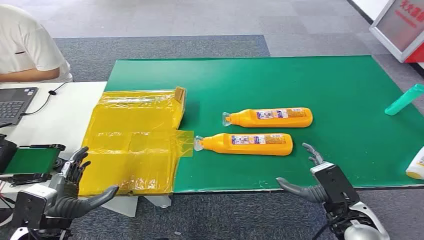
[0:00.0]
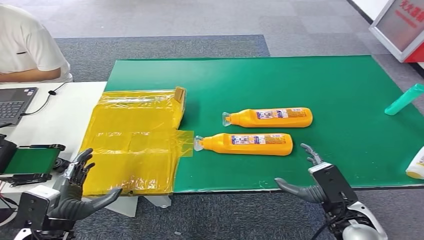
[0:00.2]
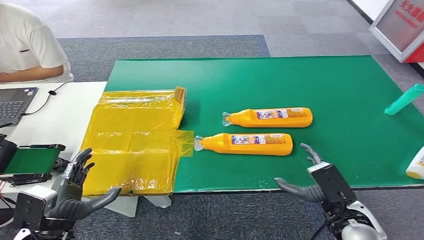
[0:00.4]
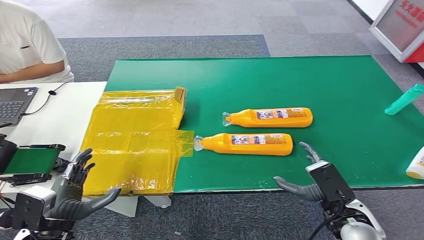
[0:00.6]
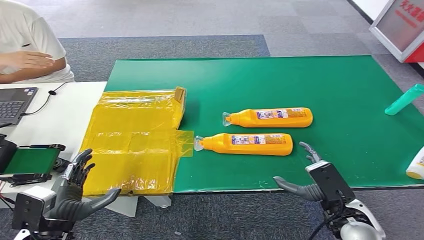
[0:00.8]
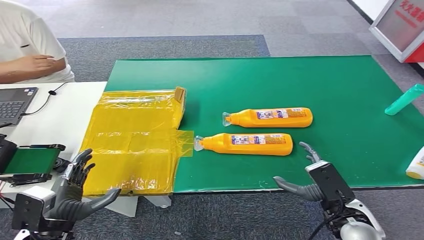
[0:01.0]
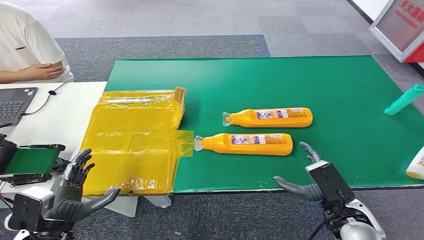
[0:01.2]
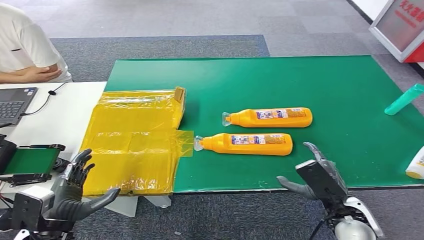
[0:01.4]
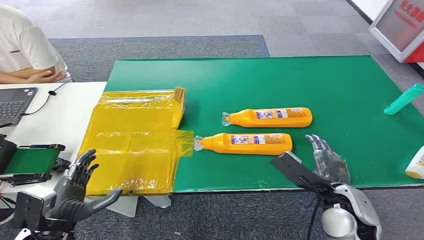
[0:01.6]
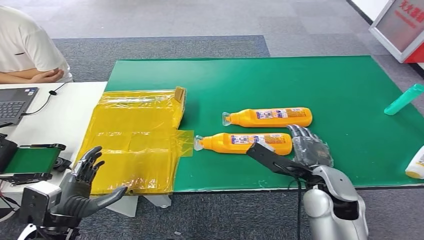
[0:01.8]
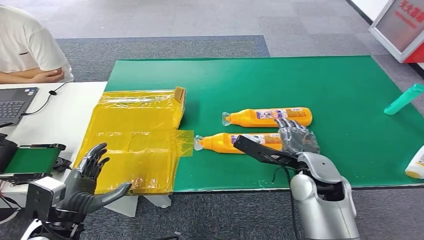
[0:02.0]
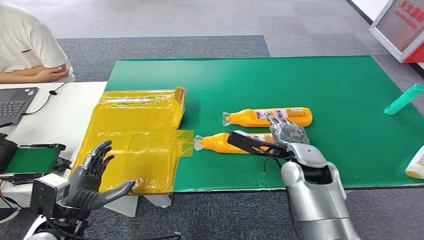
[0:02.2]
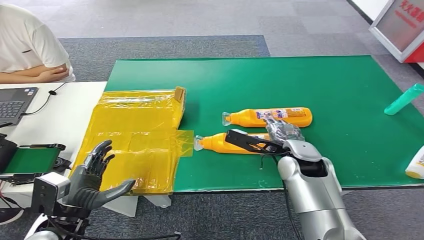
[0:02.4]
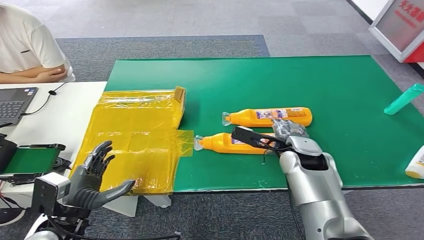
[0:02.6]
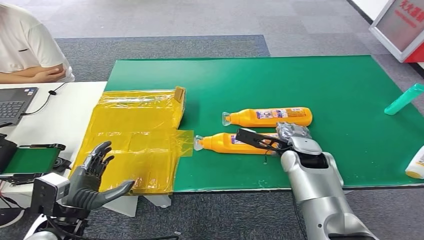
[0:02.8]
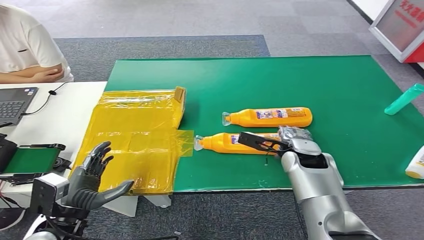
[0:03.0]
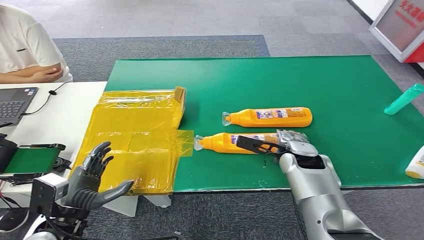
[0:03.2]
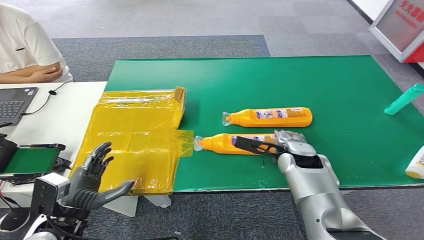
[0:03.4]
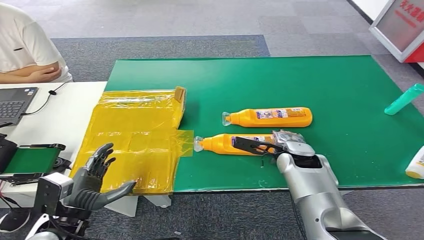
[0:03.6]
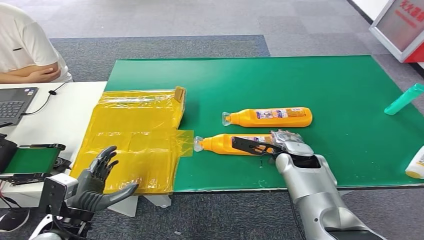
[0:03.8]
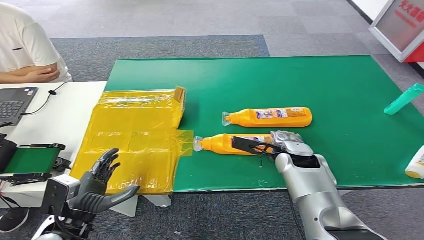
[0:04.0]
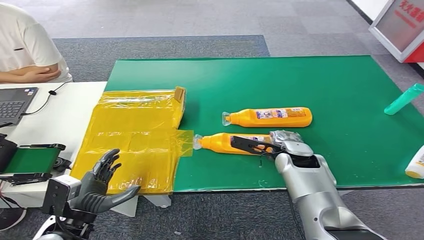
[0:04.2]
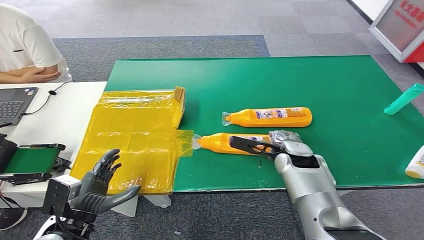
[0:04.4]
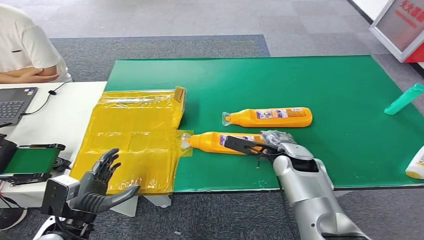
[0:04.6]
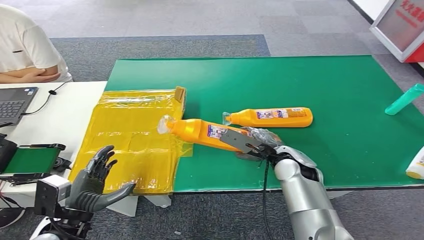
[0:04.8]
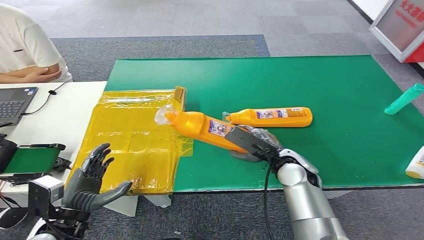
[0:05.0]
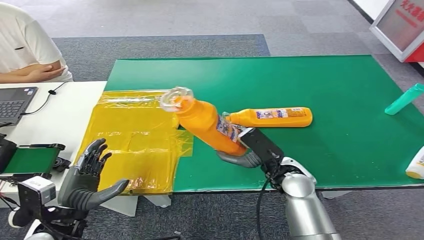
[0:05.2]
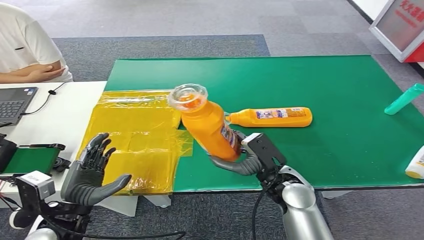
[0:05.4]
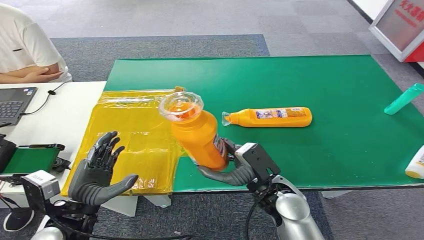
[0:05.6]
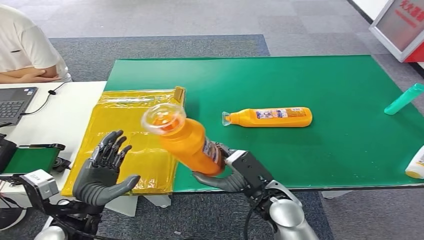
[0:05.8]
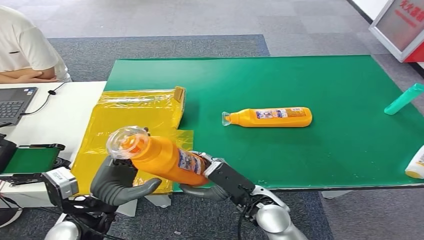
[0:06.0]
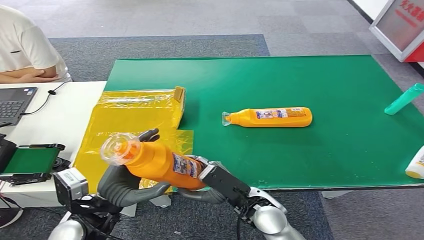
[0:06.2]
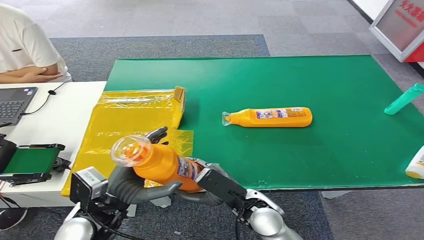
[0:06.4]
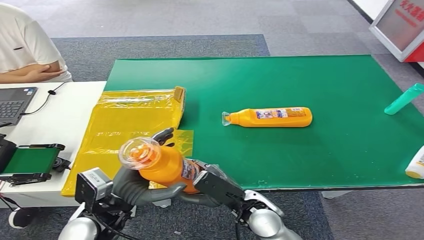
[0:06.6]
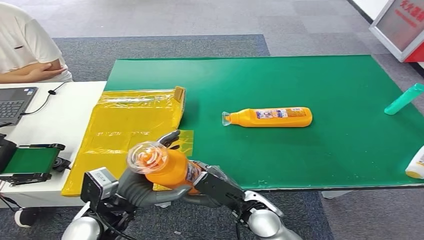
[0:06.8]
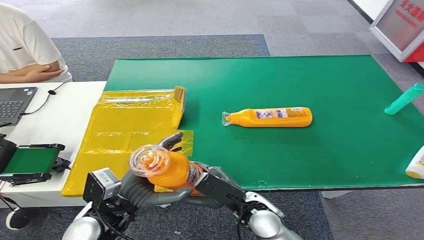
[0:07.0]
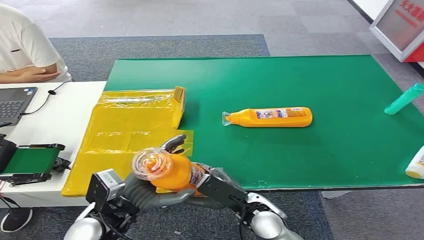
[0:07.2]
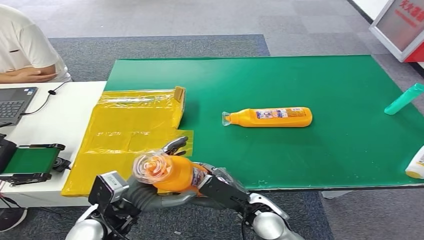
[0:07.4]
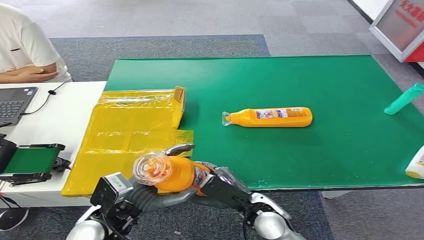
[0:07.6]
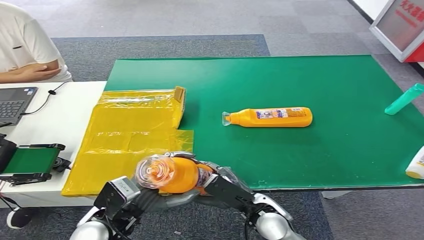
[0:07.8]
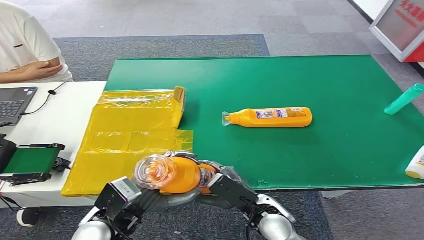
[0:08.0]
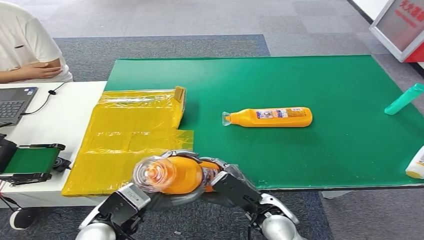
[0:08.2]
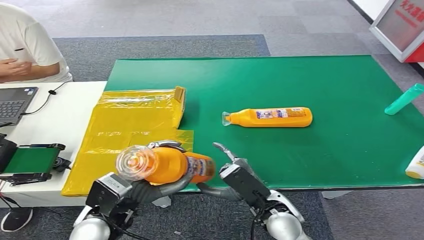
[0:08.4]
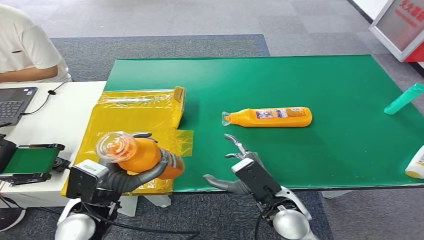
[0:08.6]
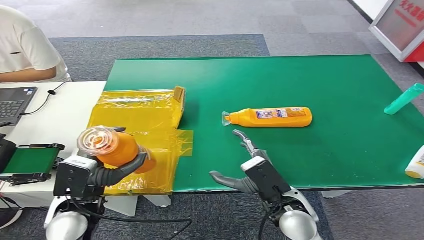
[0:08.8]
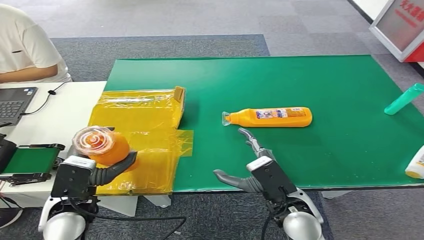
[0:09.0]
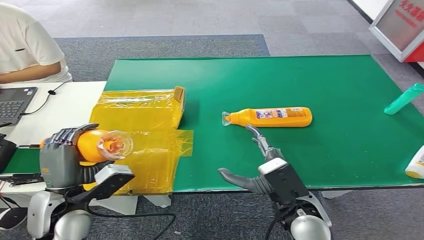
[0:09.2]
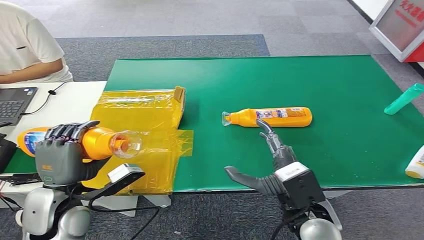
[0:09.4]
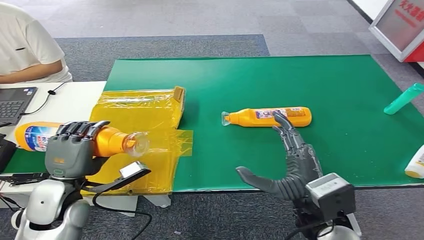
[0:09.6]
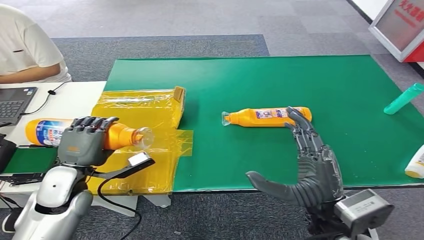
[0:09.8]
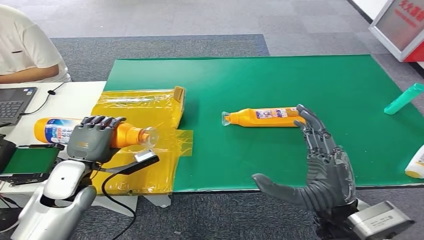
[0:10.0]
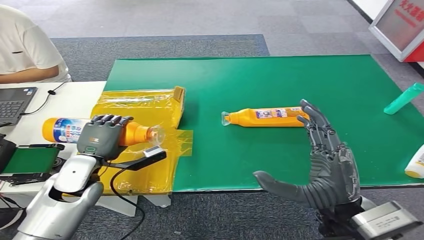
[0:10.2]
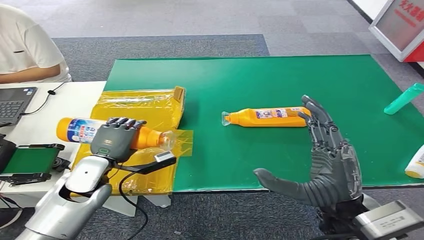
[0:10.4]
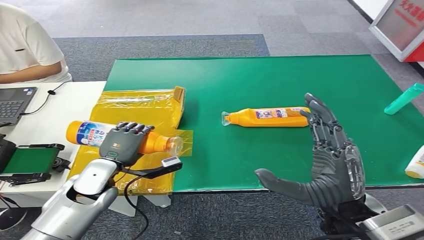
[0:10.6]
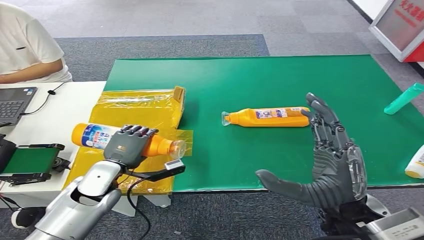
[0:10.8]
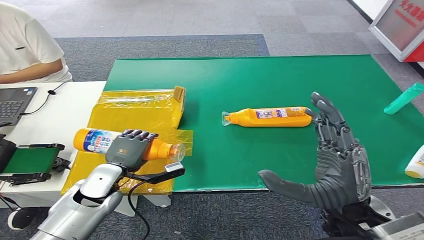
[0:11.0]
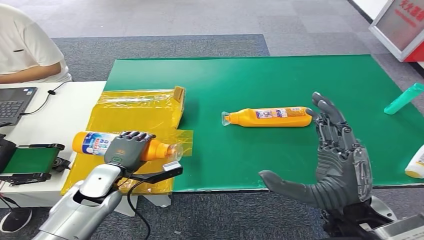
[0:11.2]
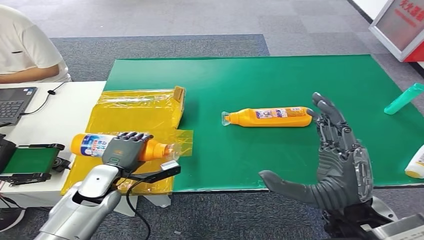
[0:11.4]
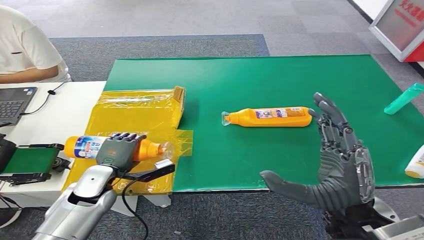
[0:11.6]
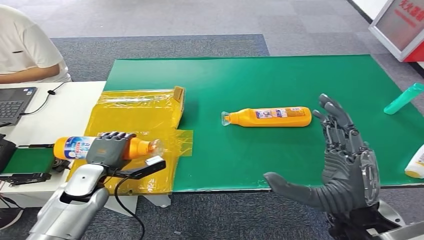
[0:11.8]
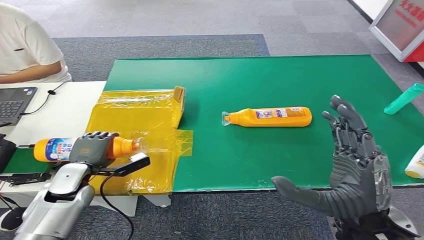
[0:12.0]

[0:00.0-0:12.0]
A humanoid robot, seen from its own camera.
Step, 0:00.0 to 0:08.0: Pick up the bottle from the table.
0:01.6 to 0:03.0: The right hand is displaced forward by about 15 cm.
0:03.0 to 0:04.4: The hands make only small movements.
0:04.4 to 0:06.0: The right hand is displaced backward and to the left by some 15 cm; the left hand travels to the right and upward by approximately 5 cm.
0:06.0 to 0:07.6: The hands stay close to where they were, moving slightly.
0:07.6 to 0:09.0: The right hand moves upward, about 5 cm. The left hand goes roughly 5 cm to the left.
0:09.0 to 0:10.4: The right hand is displaced upward by about 10 cm. Meanwhile the left hand shifts about 10 cm forward.
0:10.4 to 0:12.0: The left hand travels to the left and downward by approximately 10 cm.

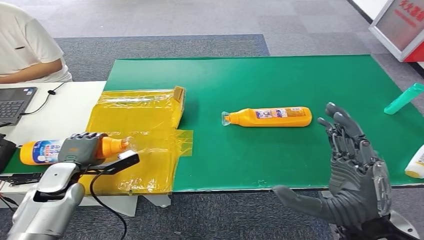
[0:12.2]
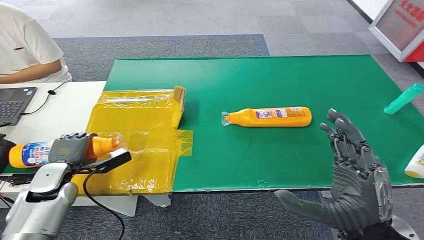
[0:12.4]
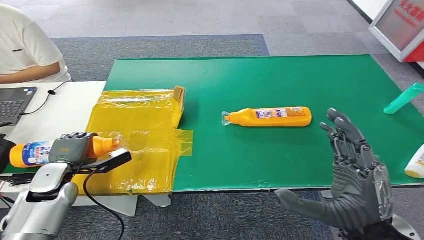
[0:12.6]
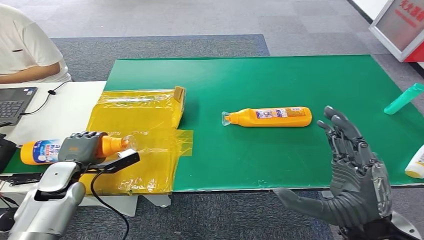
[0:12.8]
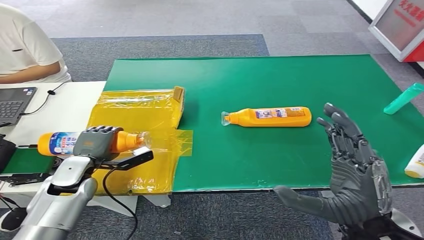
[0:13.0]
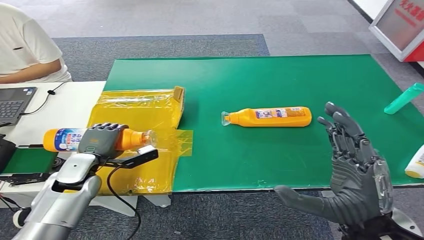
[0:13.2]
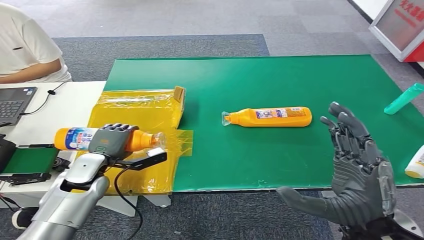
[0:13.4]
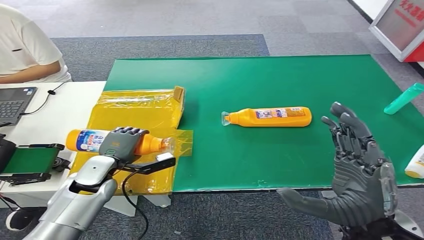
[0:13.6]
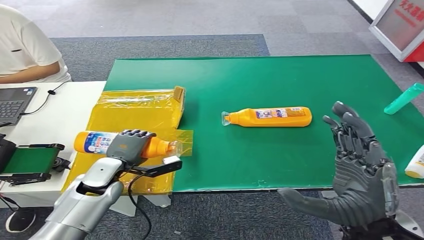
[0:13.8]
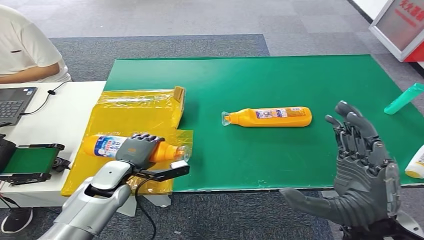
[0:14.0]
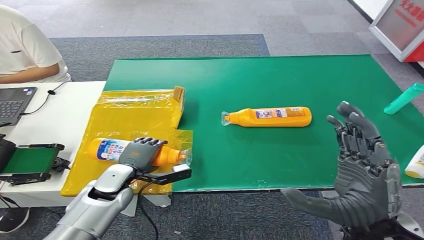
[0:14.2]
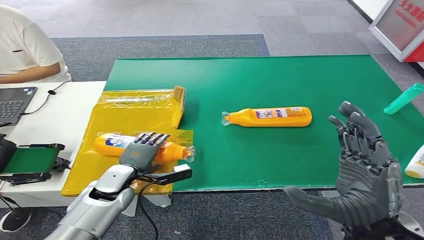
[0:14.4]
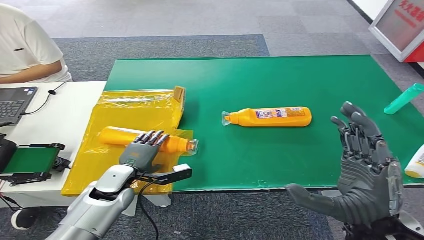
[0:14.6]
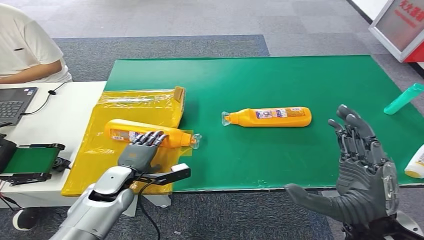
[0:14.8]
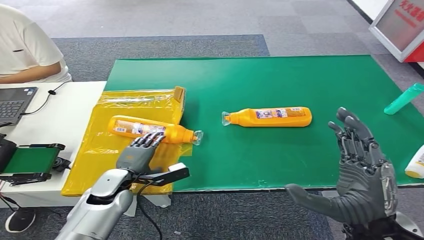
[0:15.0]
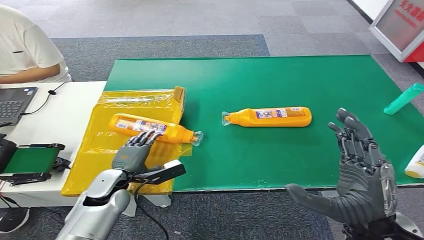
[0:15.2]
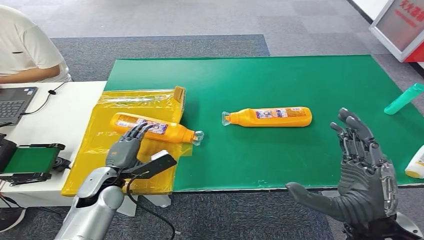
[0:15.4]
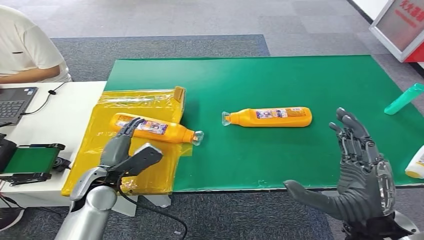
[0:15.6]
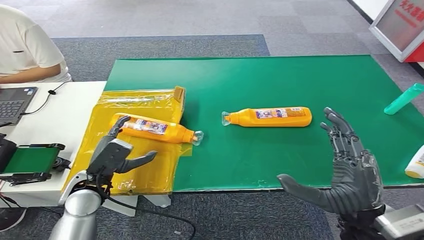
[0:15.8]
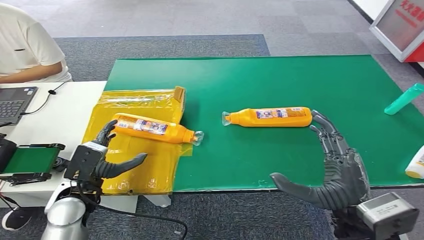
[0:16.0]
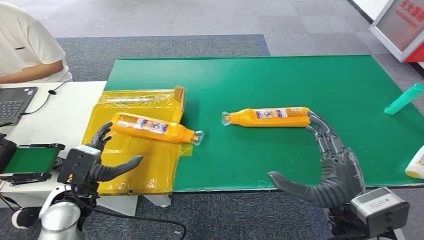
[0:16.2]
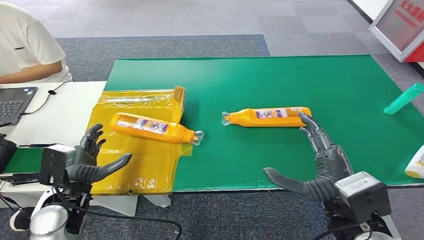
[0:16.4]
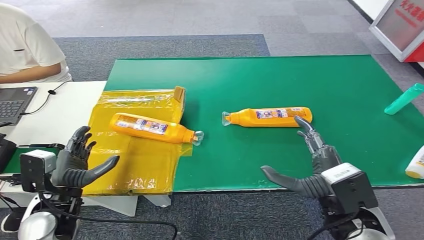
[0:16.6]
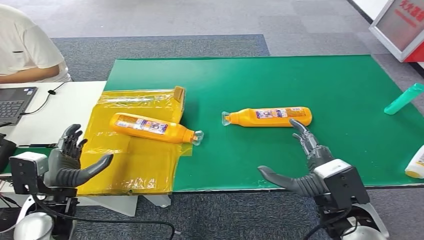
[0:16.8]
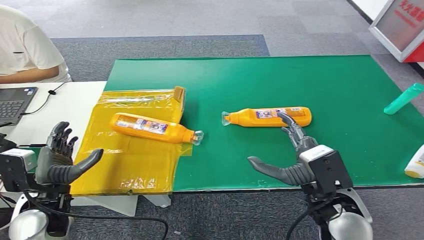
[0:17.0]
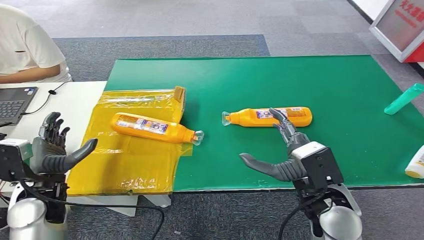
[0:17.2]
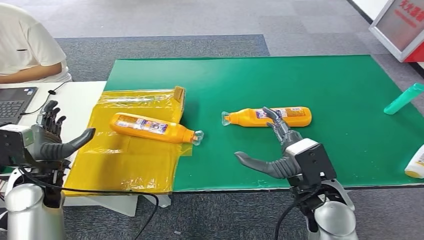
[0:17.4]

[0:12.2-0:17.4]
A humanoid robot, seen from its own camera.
Step, 0:12.2 to 0:17.4: Turn the bottle to the front side.
0:12.2 to 0:14.0: The left hand moves to the right, roughly 10 cm.
